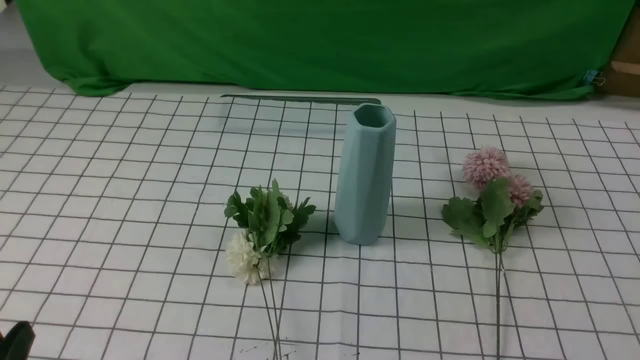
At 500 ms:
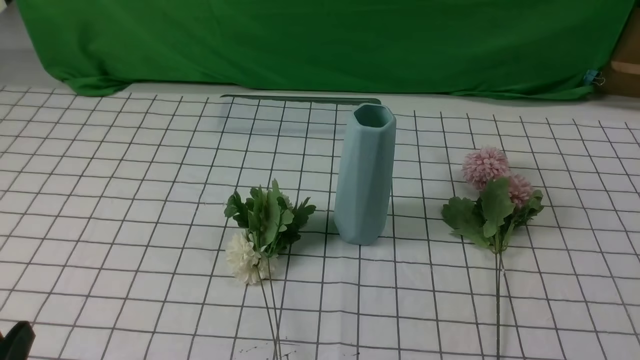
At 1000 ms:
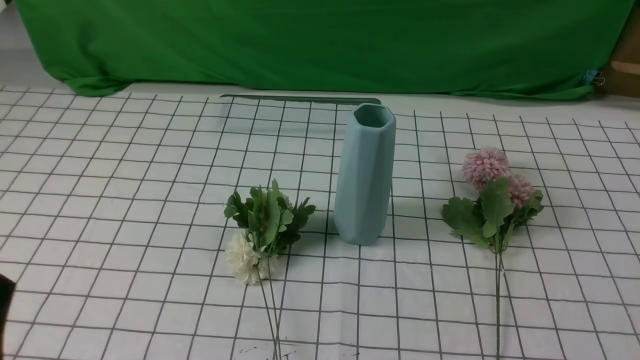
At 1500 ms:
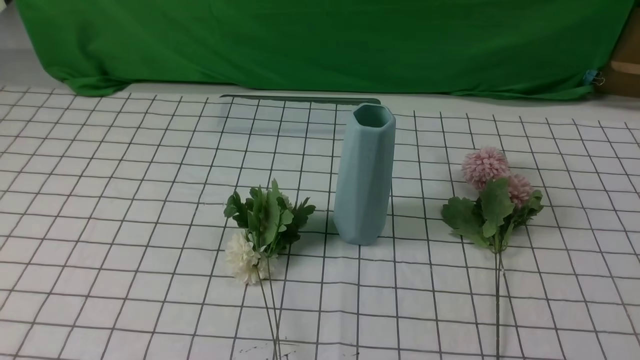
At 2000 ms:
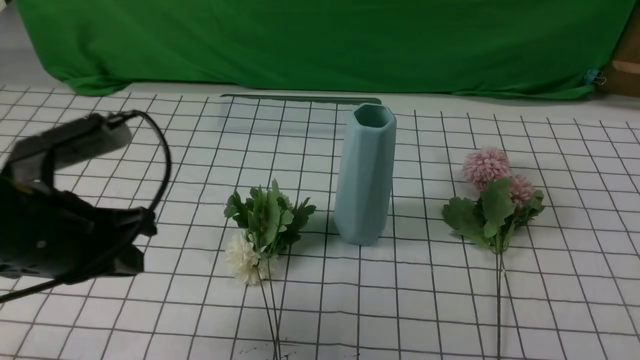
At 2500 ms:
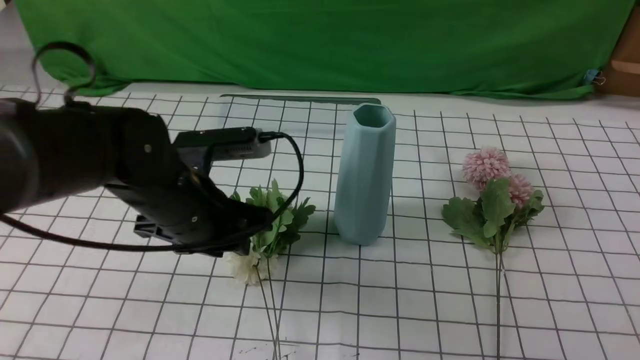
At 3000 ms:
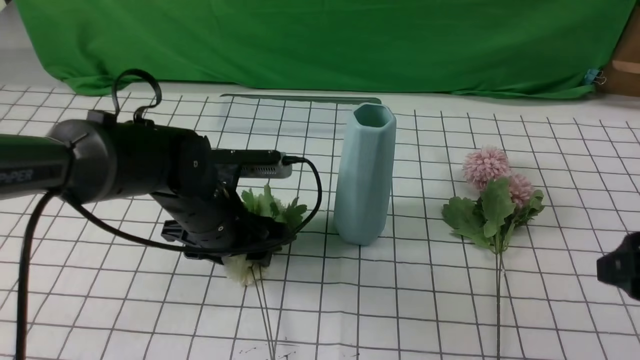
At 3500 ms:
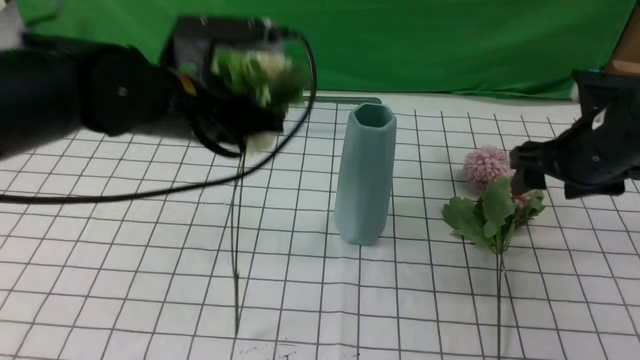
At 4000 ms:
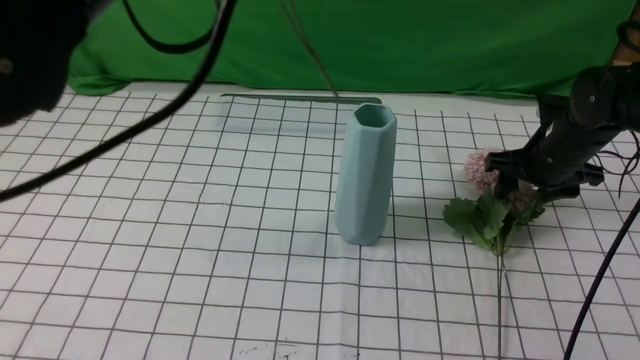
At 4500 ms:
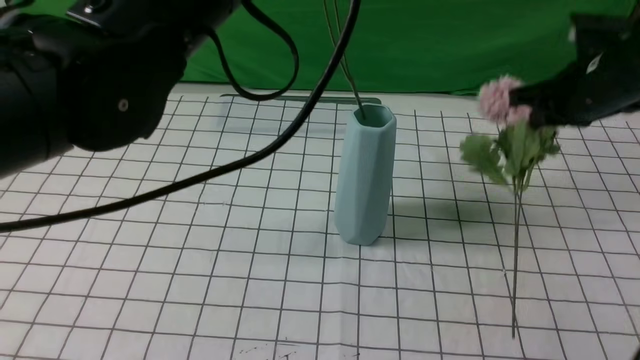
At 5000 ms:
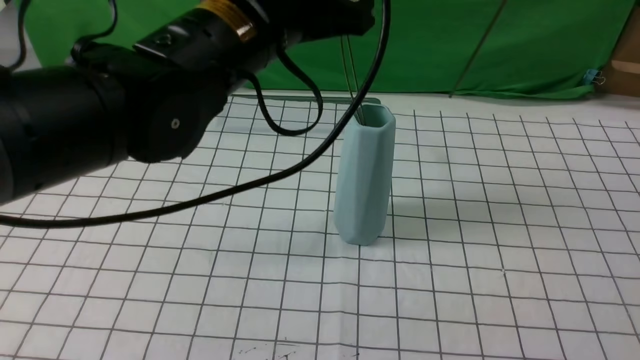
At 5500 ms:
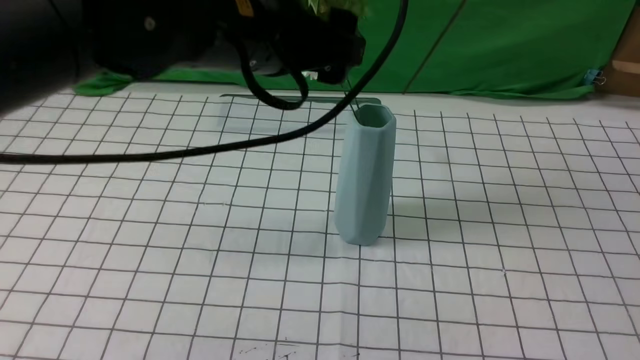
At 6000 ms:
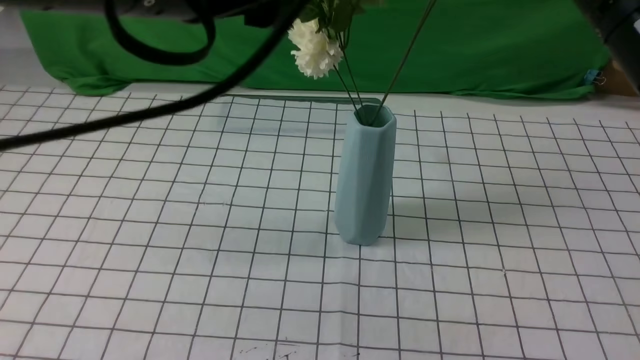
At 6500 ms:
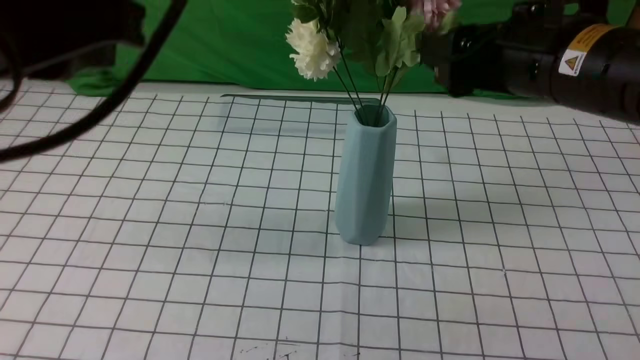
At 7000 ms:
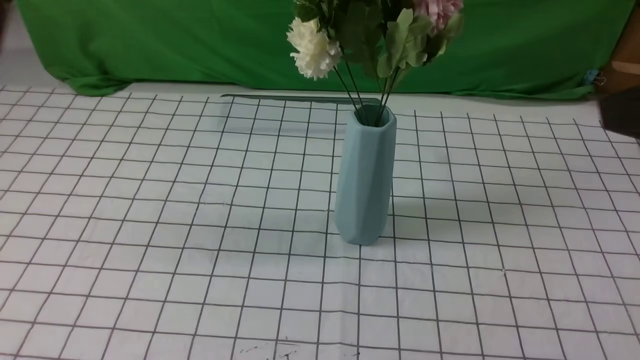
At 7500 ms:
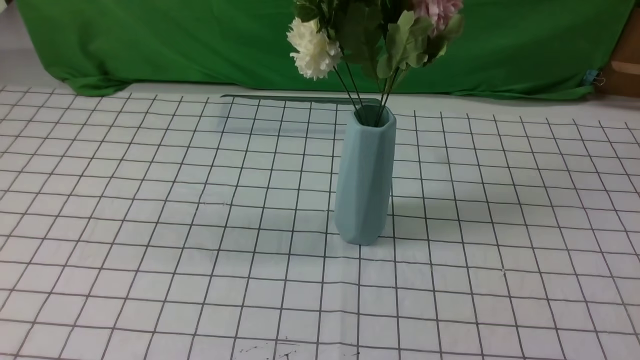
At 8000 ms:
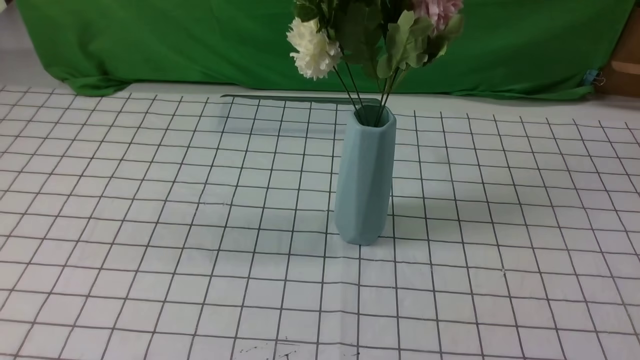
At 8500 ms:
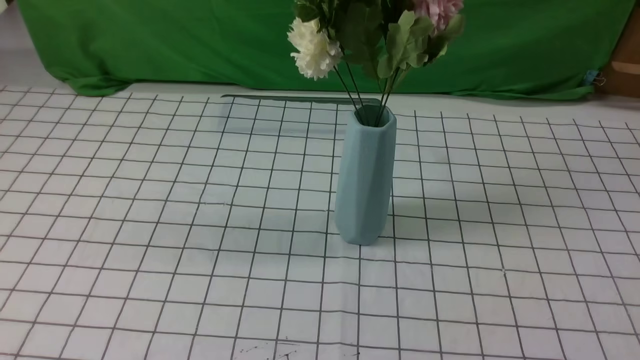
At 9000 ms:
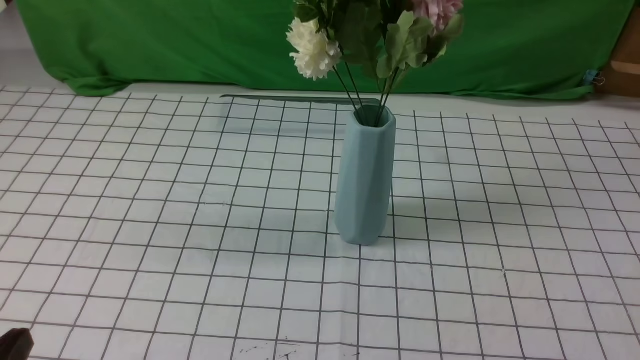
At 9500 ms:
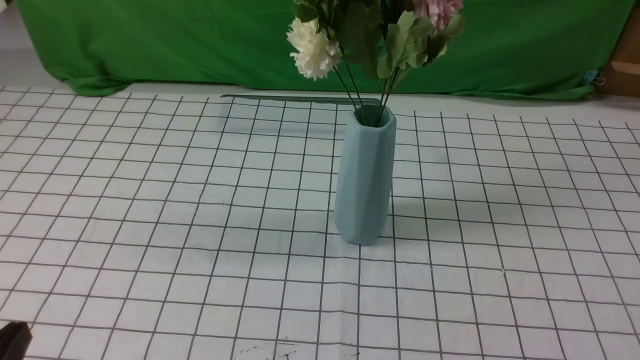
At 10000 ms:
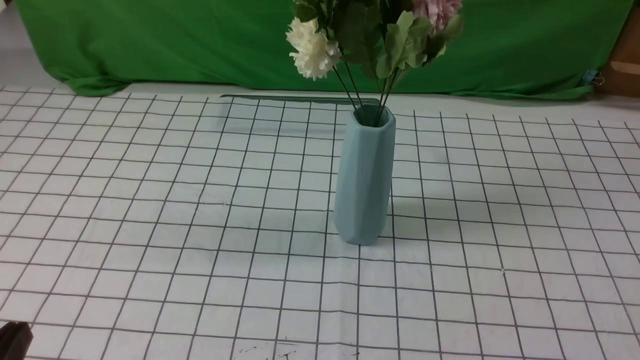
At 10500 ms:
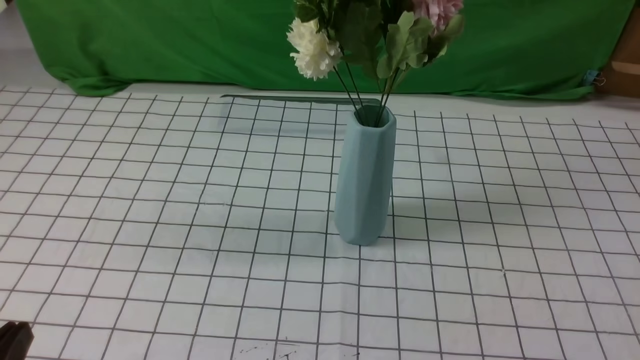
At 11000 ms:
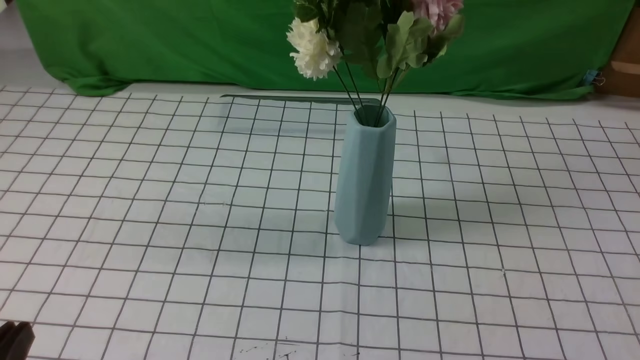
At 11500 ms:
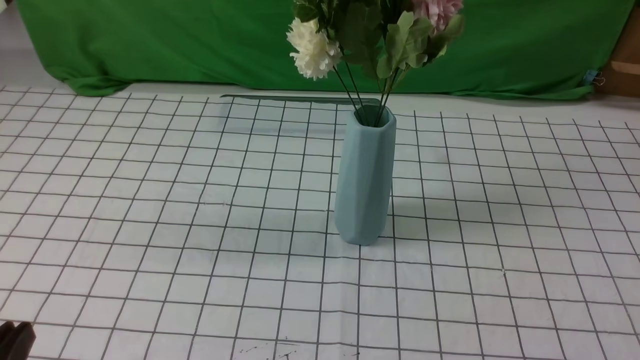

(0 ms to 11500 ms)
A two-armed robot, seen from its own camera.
Task of the whole recording: insert the flowers into the vase on the table with the white tablecloth.
Step, 0 ms - 6500 ms: Put the flowers in the vase with both hands.
0 ms - 2000 ms: The left gripper shifts approximately 20 cm forward and upward, and closes up.
2000 ms - 4000 ms: The right gripper shifts approximately 35 cm forward, and opens, then closes again. The left gripper heads upward and to the right, covering about 20 cm, and opens and closes again.
4000 ms - 6000 ms: The right gripper shifts approximately 25 cm upward and backward, and closes. Meanwhile the left gripper reaches about 5 cm downward, then returns, and opens.
6000 ms - 7500 ms: The left gripper travels backward, to the left and downward by approximately 25 cm, and closes up. The right gripper shifts some 25 cm backward, and opens and closes again.
